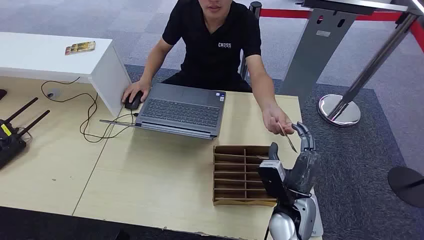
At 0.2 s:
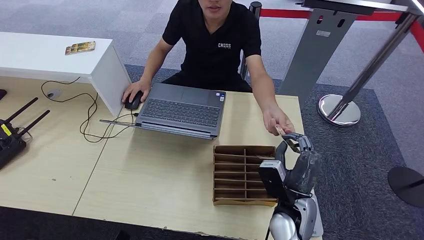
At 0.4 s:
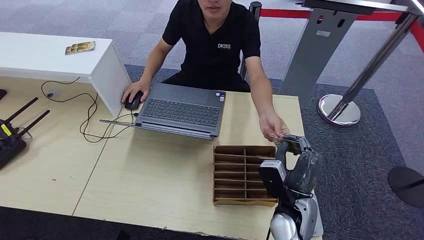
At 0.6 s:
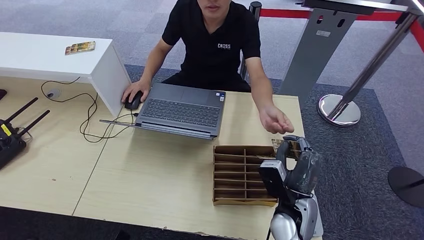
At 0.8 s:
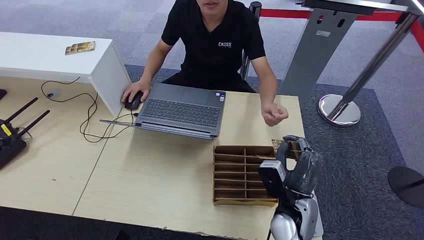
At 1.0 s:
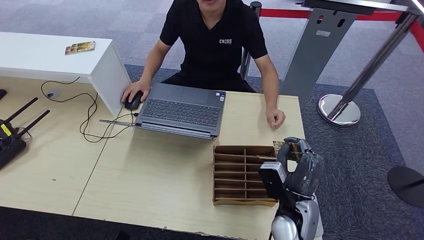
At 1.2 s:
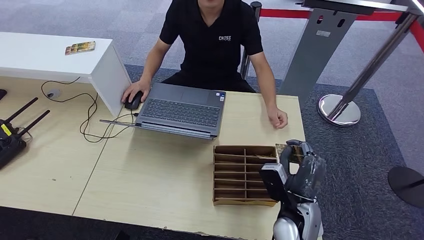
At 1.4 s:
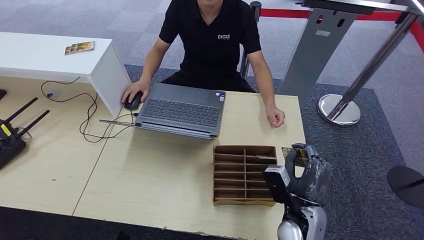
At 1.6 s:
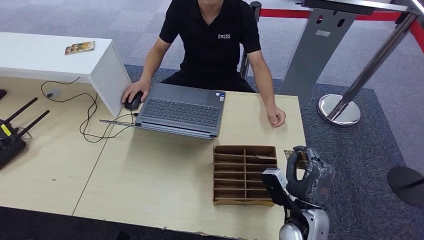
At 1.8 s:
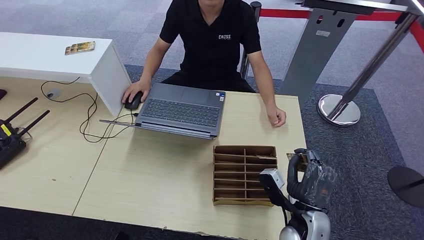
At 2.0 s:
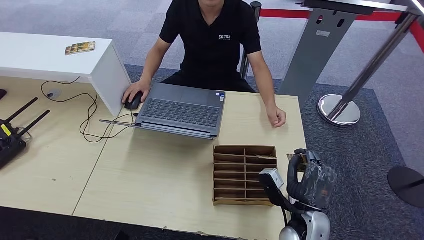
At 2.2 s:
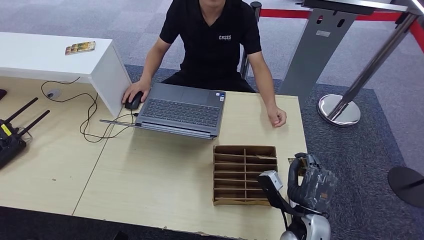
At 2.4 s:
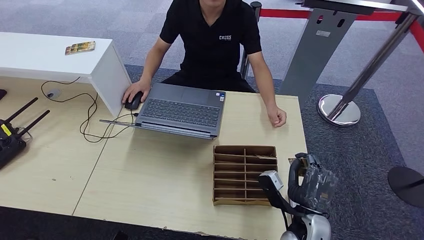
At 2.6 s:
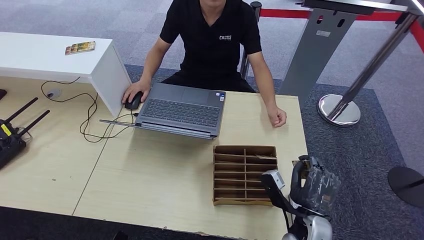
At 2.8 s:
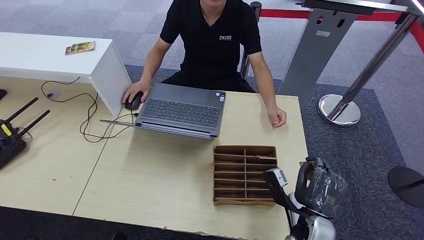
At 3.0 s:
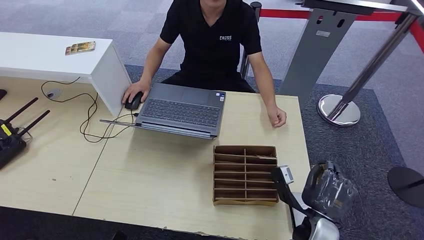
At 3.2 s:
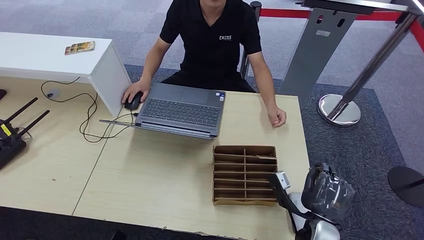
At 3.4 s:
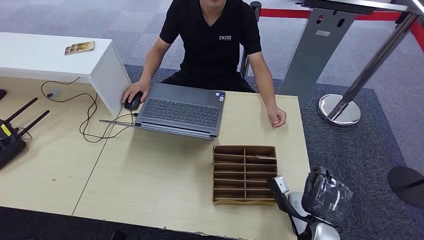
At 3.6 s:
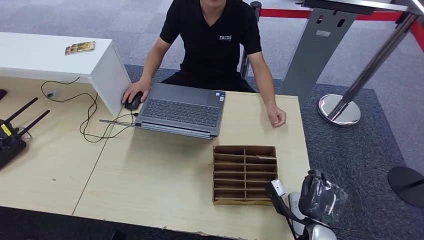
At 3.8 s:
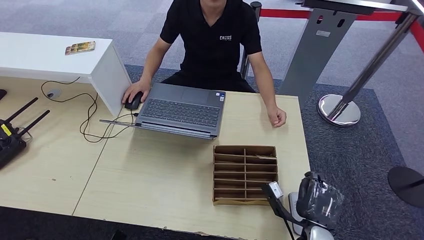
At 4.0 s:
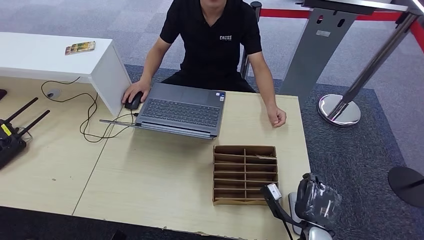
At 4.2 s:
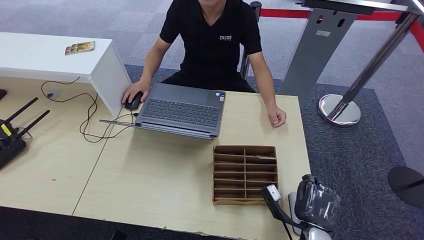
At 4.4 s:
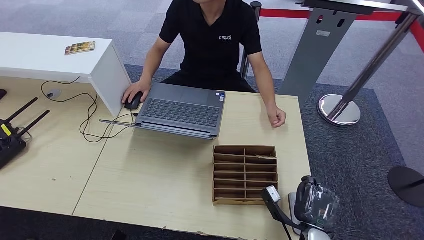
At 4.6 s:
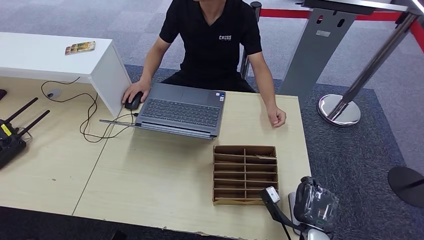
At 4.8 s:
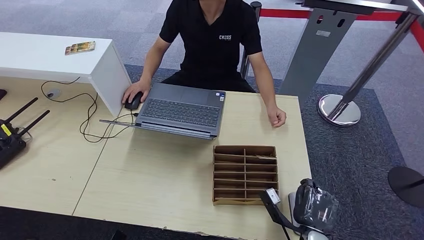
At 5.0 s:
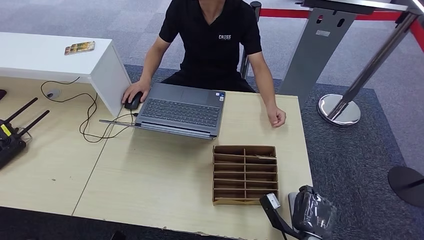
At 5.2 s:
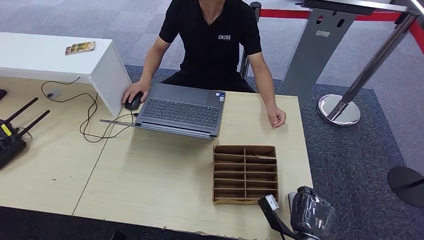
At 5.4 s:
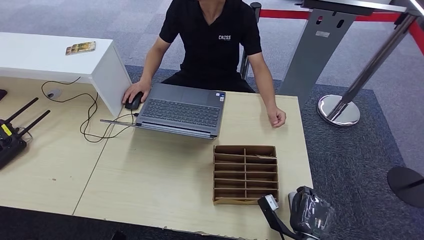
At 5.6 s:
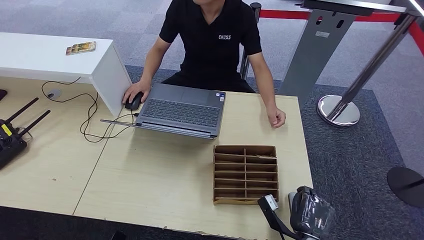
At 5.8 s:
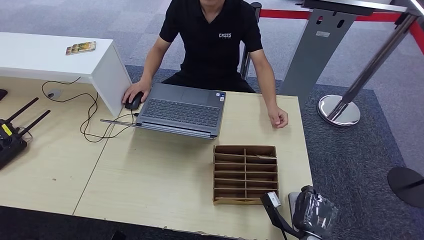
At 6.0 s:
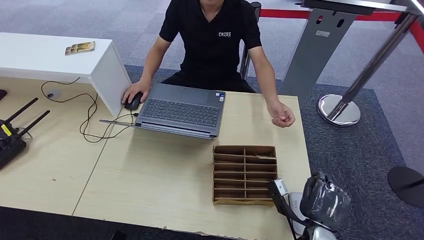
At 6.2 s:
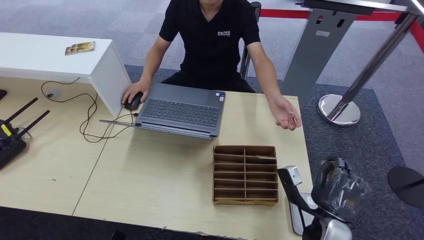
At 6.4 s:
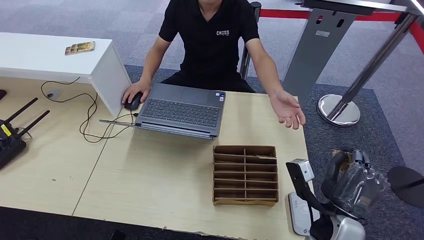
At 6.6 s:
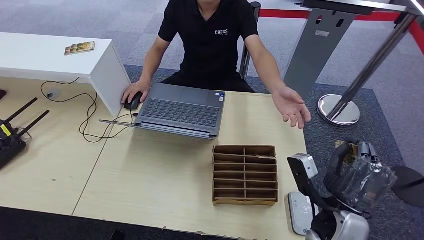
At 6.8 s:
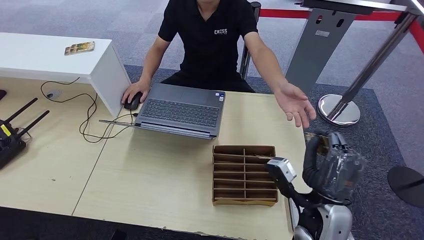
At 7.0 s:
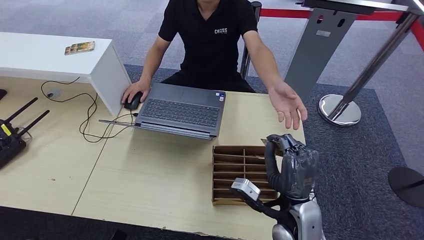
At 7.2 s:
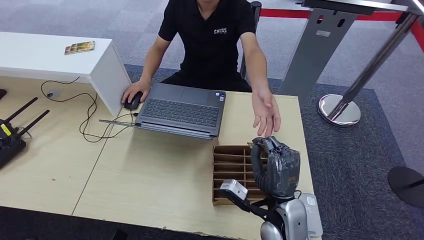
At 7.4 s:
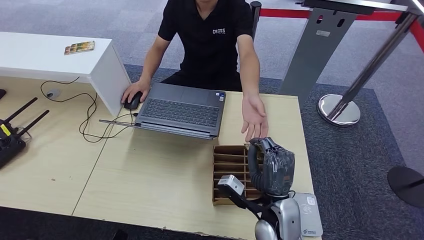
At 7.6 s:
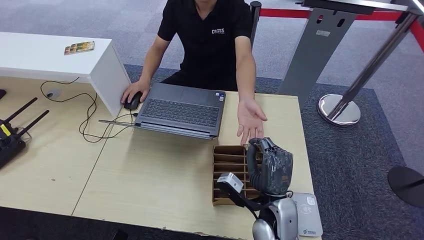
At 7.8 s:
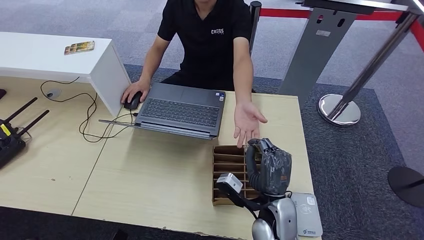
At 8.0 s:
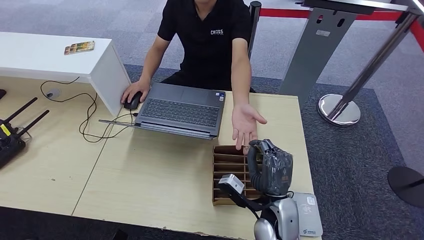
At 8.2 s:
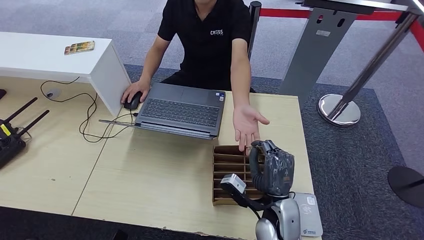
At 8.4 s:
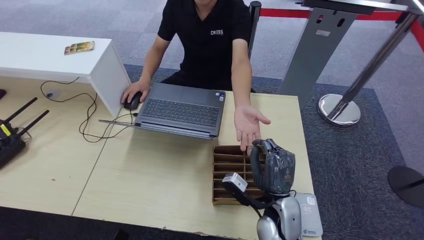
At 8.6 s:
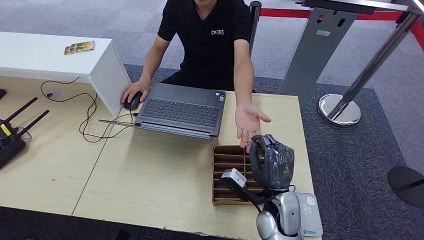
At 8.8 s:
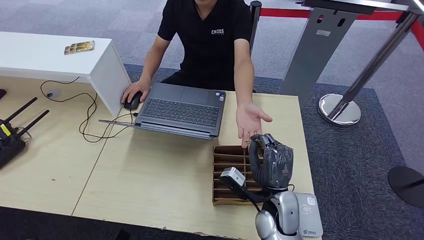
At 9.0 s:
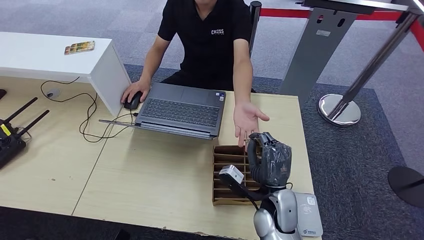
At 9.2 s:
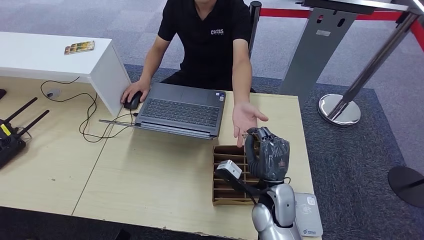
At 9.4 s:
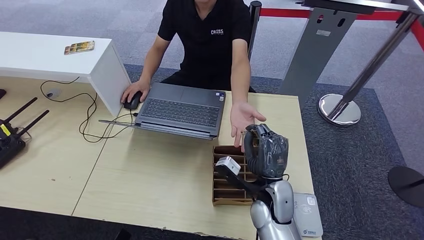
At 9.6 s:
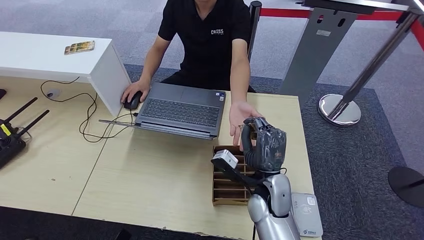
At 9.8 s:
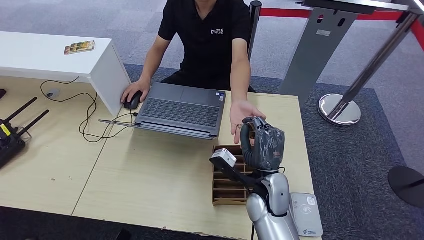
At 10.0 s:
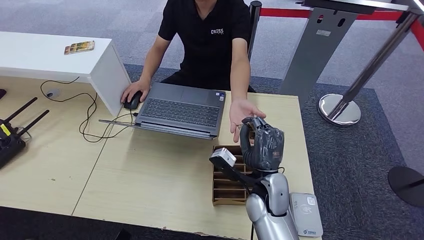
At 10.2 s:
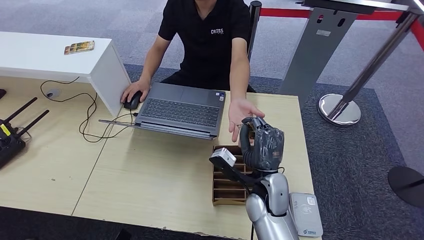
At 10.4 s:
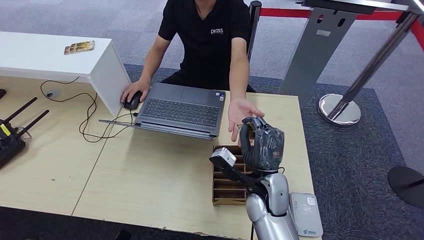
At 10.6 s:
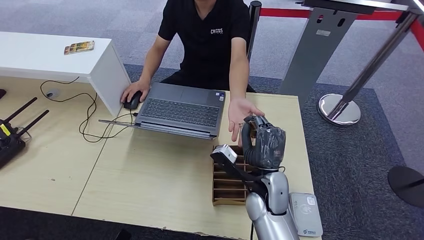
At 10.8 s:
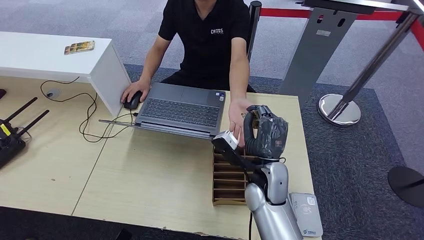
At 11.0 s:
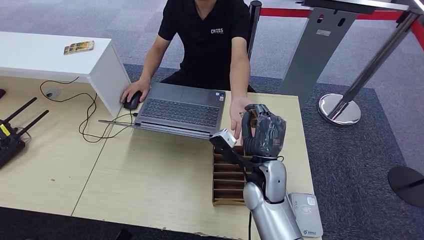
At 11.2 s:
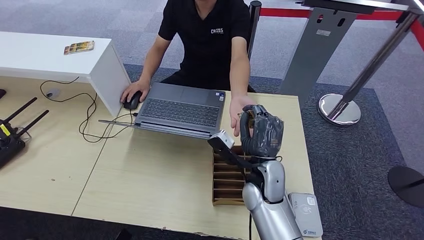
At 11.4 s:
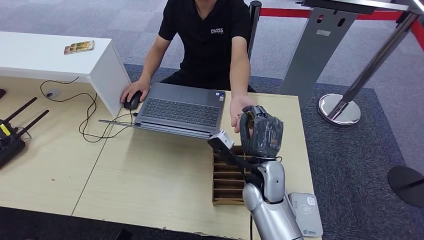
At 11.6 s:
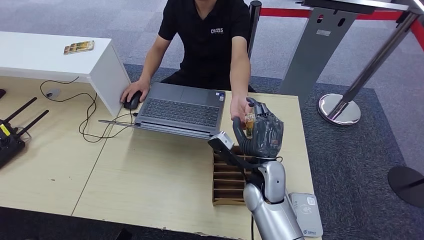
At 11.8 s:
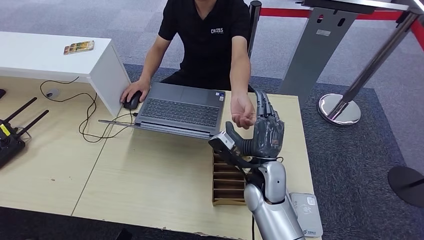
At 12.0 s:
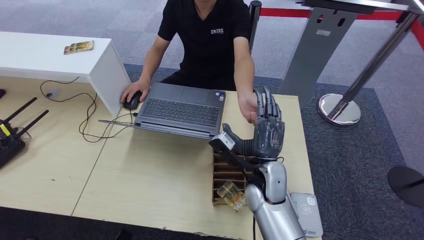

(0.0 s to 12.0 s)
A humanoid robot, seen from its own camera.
Step, 0.0 s - 0.8 s: Take the ID card from the person's hand.
Step, 1.2 s - 5.2 s: Place the ID card on the card reader.
3.0 s - 4.4 s: The right hand goes roughly 5 cm downward.
4.4 s - 6.0 s: The hands stay close to where they were, moving slightly.
6.0 s - 7.6 s: The right hand is displaced to the left, upward and forward by about 10 cm.
7.6 s - 10.4 s: There are only small adjustments of the hands.
10.4 s - 12.0 s: The hands move only a little.

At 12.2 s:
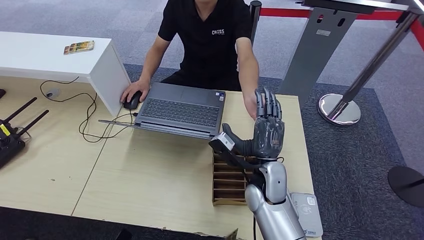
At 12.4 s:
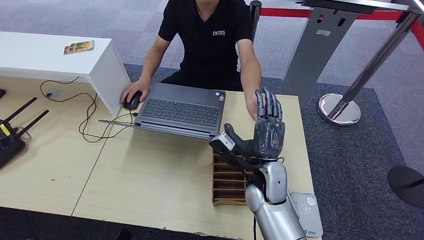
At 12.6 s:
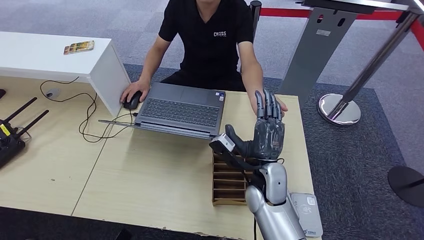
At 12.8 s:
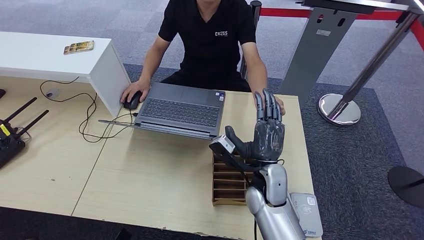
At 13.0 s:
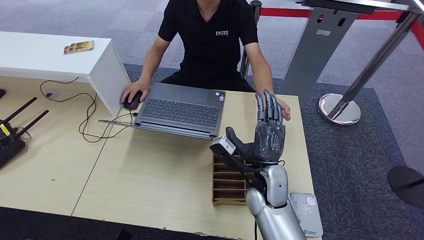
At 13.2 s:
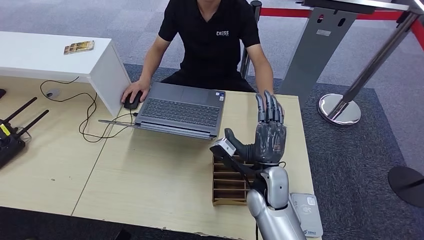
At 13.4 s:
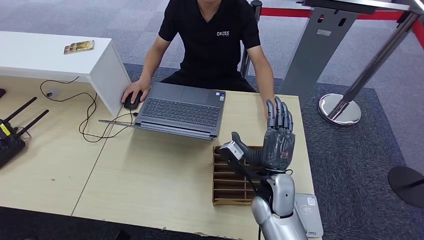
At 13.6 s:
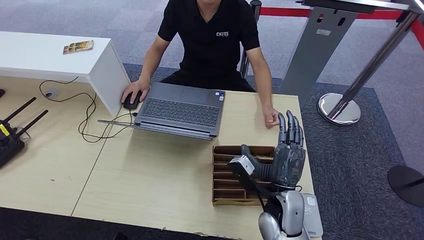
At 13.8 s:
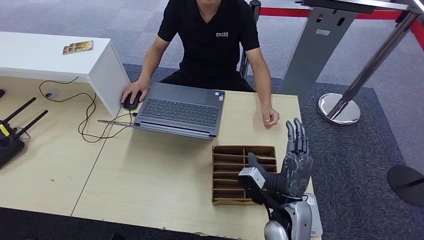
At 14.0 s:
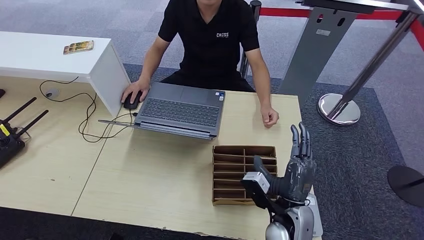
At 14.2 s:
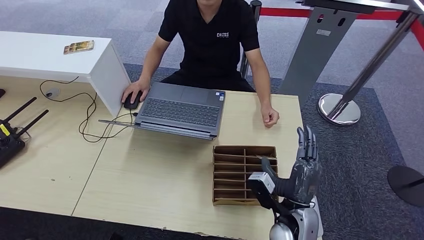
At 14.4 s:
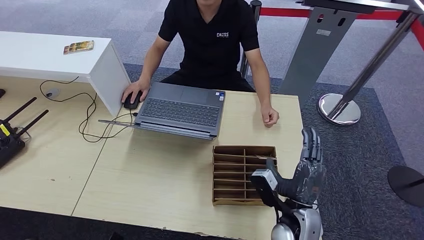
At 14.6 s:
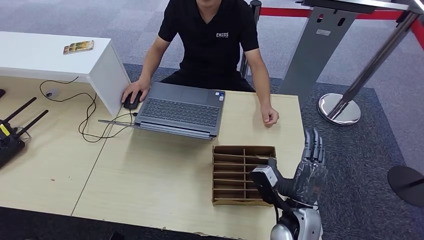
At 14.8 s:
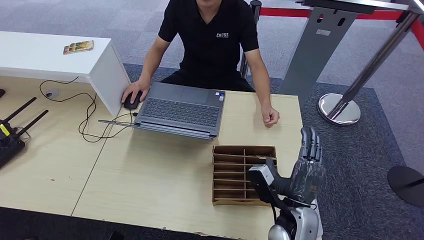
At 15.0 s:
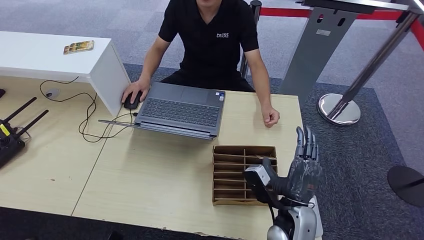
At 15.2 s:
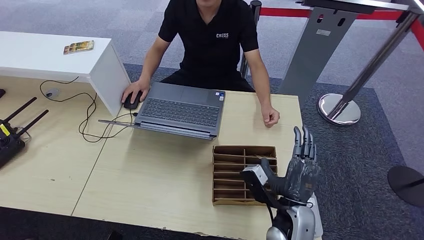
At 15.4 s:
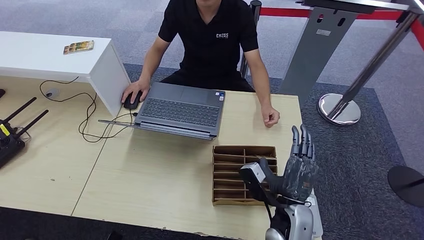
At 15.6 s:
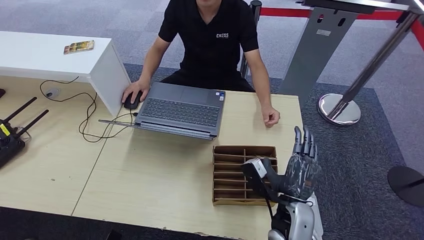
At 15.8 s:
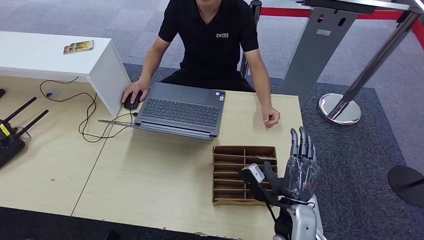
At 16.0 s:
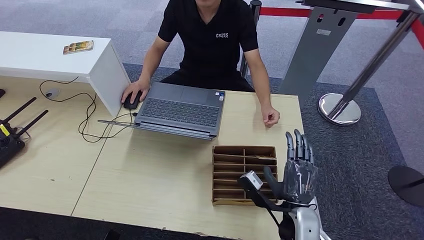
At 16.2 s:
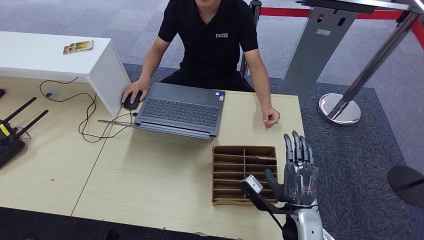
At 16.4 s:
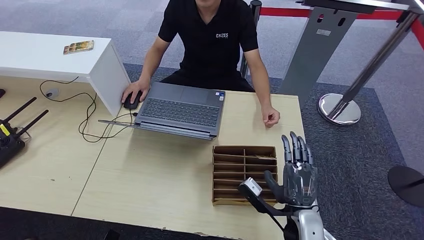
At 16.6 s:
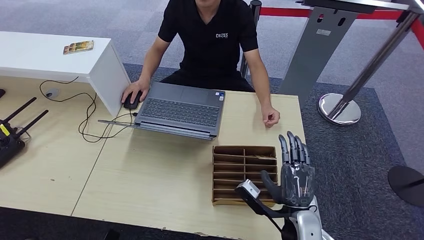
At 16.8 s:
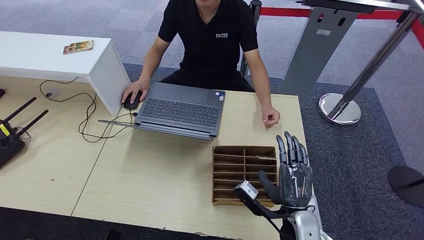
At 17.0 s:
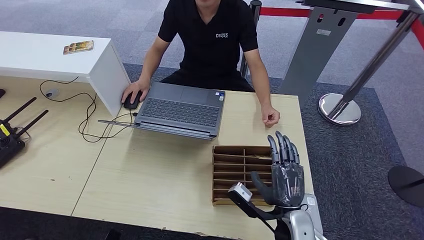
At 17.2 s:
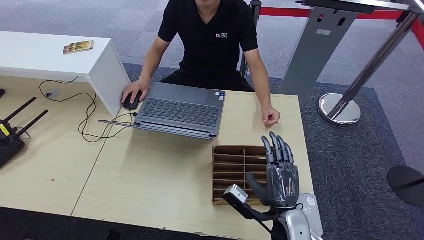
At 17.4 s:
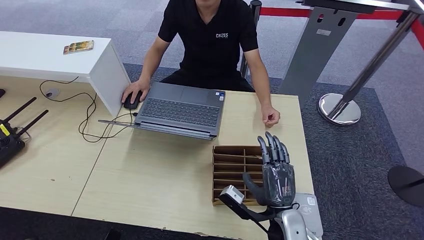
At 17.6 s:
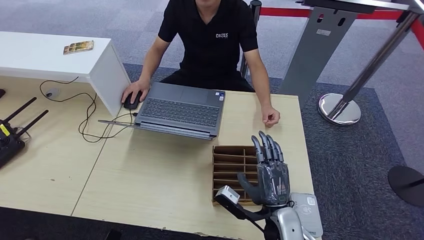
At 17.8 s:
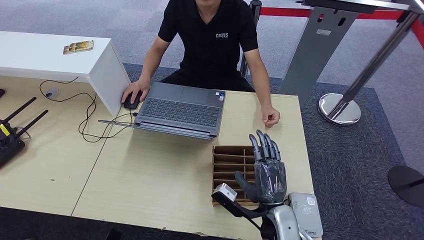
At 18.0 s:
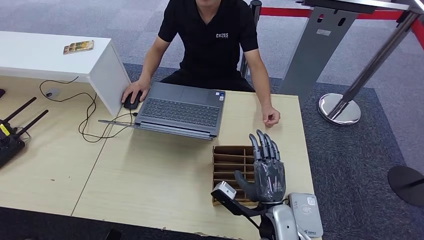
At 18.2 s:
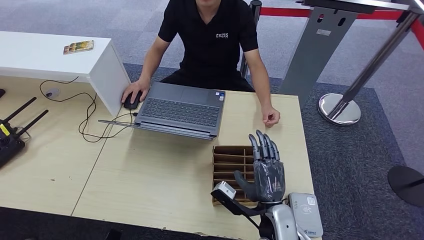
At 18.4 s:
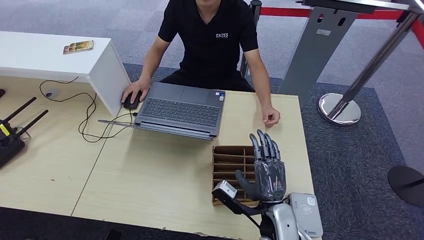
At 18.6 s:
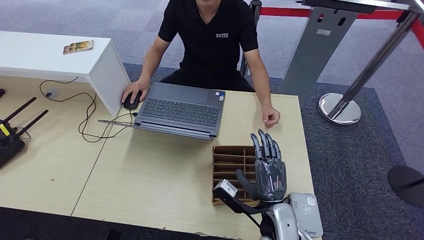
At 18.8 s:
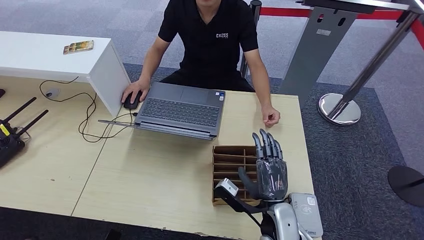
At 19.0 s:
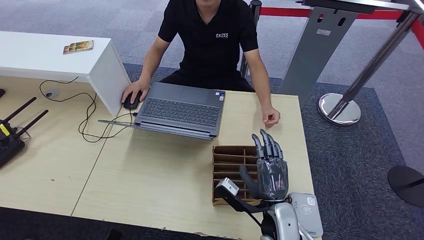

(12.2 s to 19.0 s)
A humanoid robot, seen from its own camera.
12.2 s - 13.6 s: The right hand travels backward by some 5 cm.
13.6 s - 15.0 s: There are only small adjustments of the hands.
15.0 s - 16.2 s: The hands move only a little.
16.2 s - 19.0 s: The hands stay close to where they were, moving slightly.
